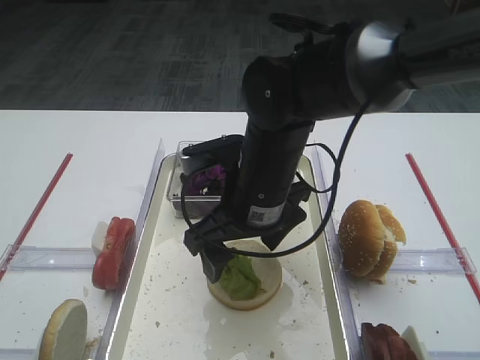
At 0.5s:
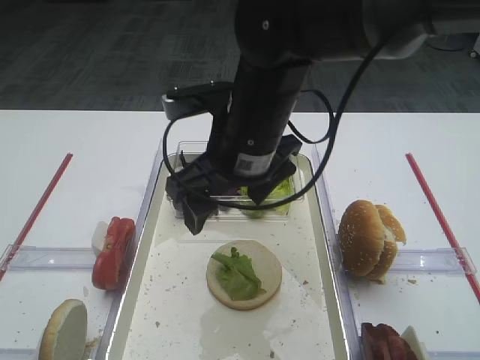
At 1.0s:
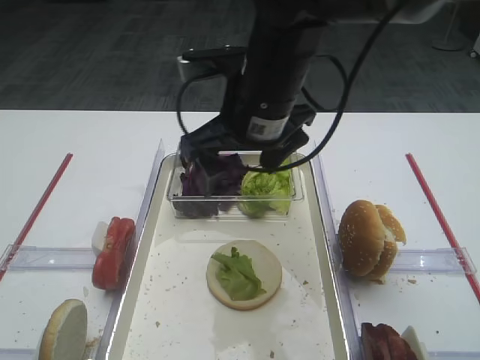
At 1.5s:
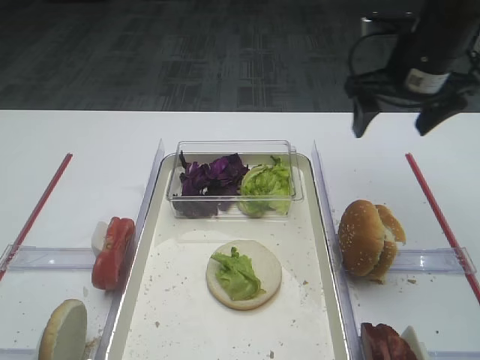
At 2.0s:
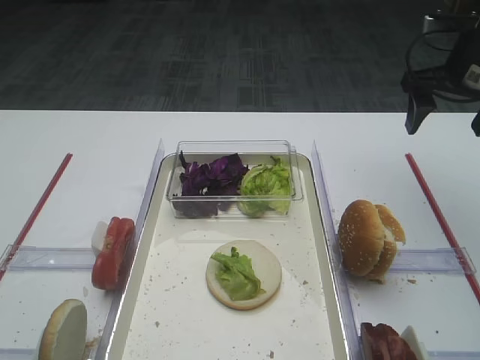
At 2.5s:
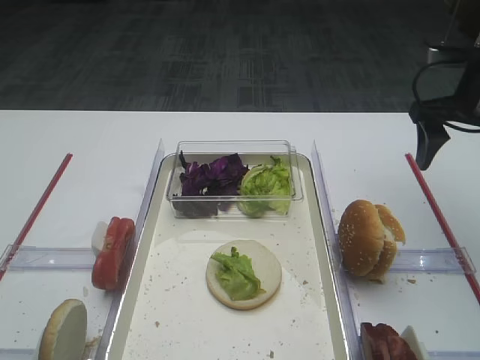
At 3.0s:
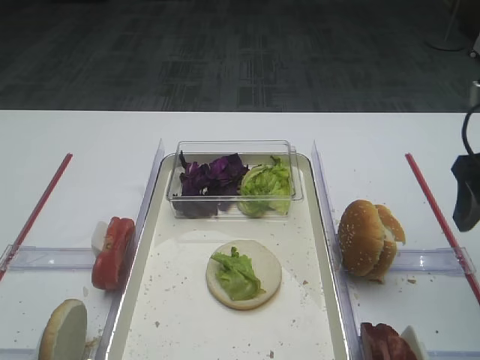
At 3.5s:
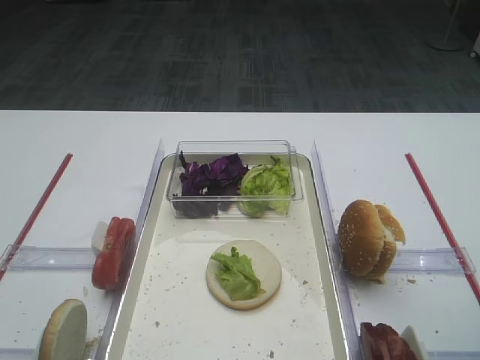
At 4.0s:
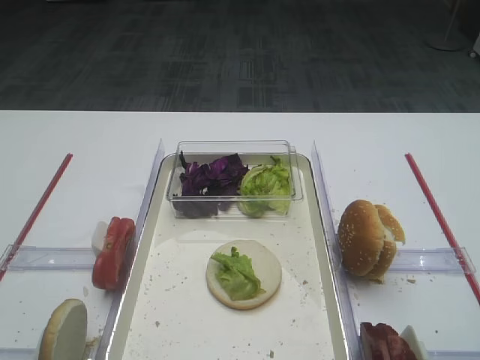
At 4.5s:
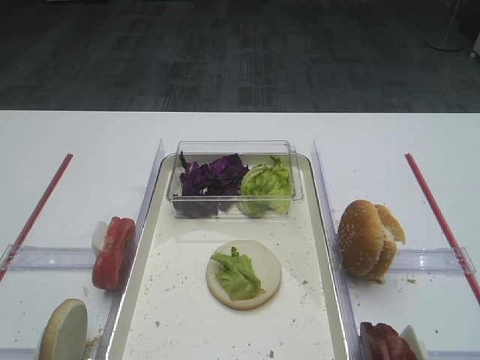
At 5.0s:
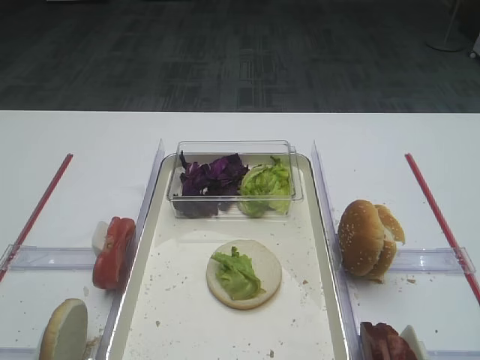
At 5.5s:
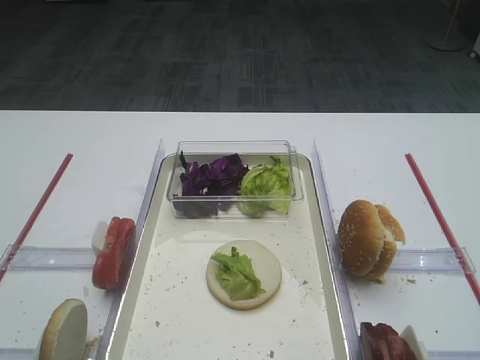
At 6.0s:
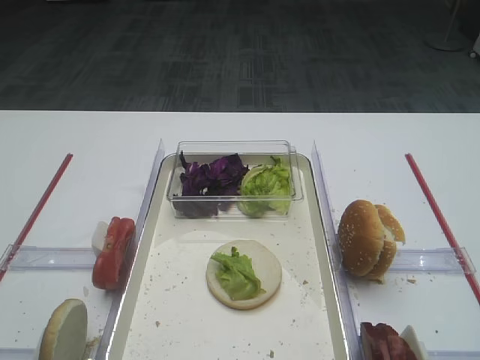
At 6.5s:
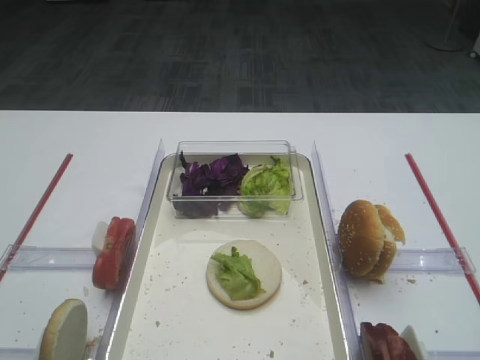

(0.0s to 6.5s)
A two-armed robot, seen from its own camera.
0.0s - 2.0s: The right gripper heads to the right and forward, covering about 30 cm.
2.0s - 4.5s: The right gripper moves backward, about 40 cm.

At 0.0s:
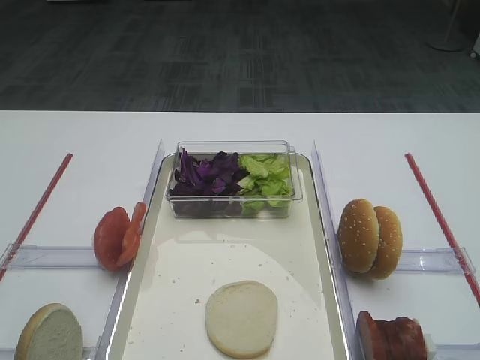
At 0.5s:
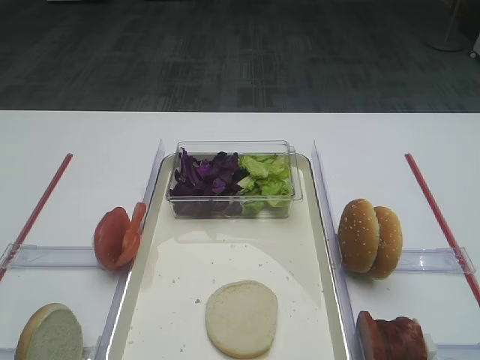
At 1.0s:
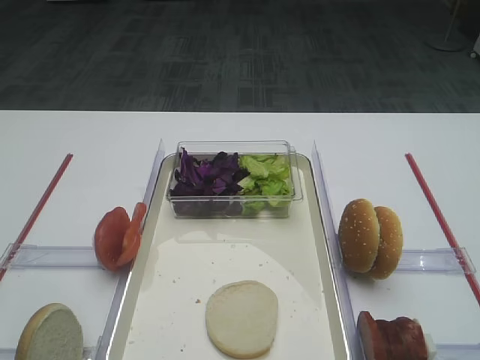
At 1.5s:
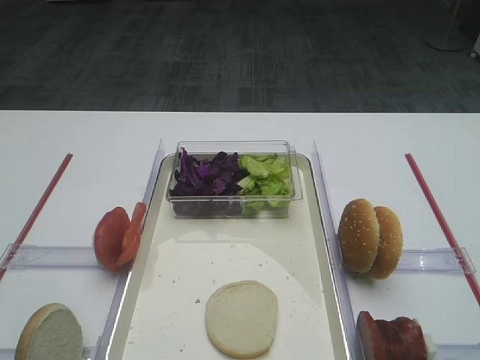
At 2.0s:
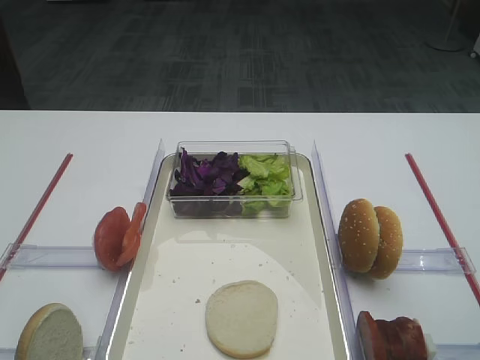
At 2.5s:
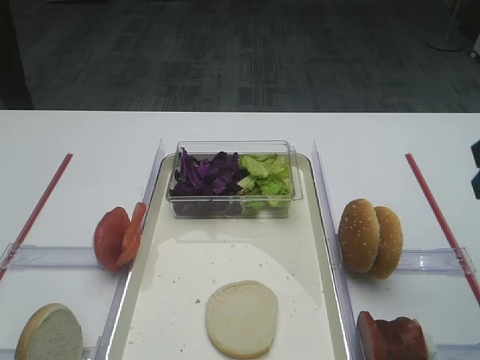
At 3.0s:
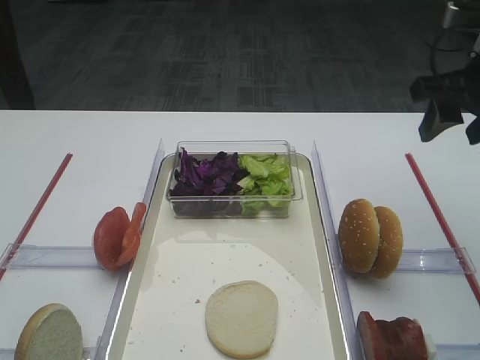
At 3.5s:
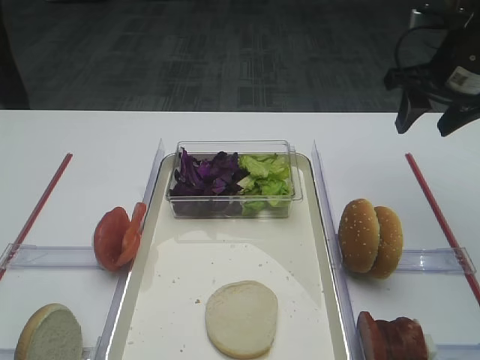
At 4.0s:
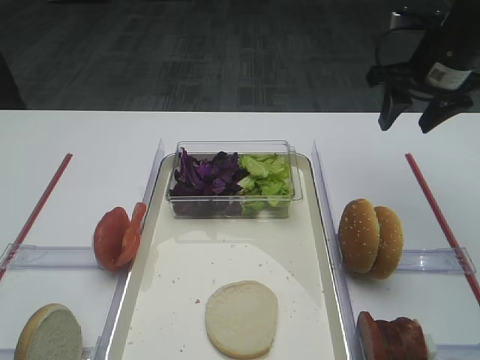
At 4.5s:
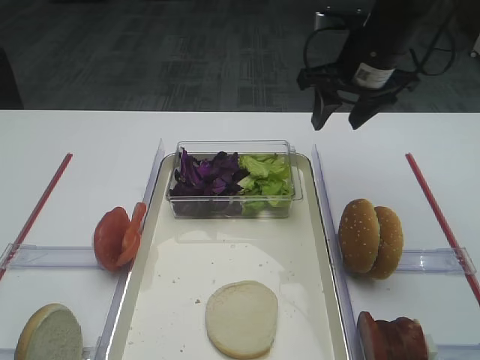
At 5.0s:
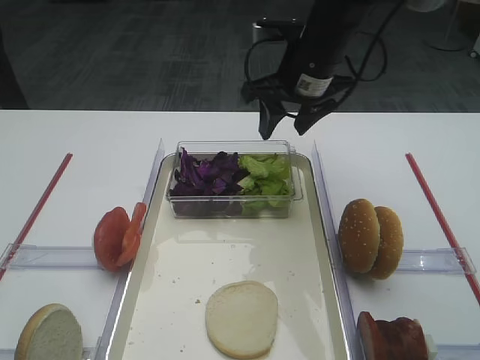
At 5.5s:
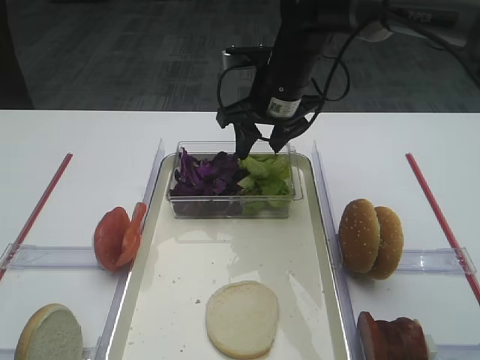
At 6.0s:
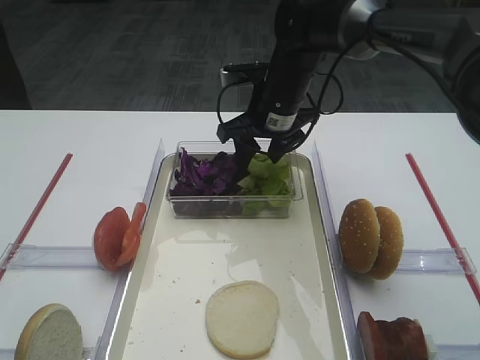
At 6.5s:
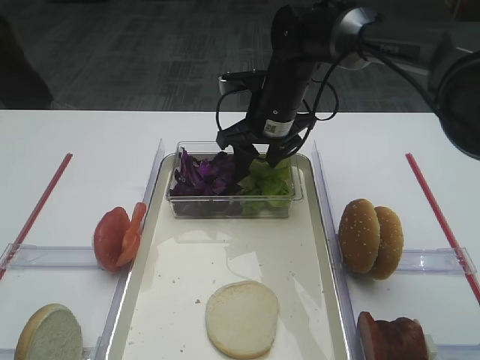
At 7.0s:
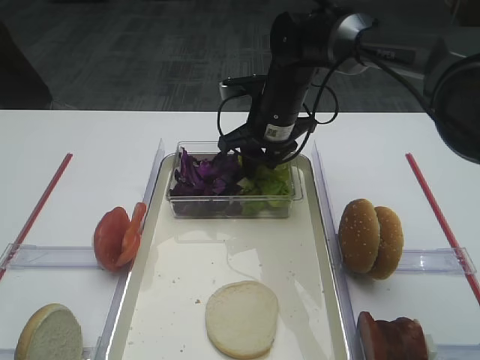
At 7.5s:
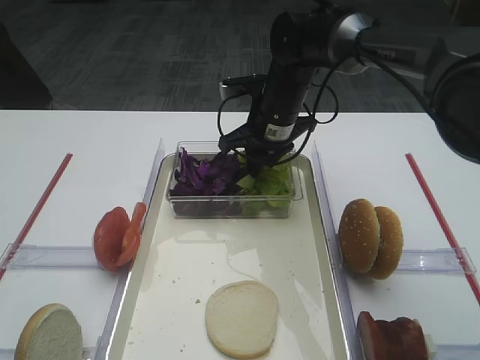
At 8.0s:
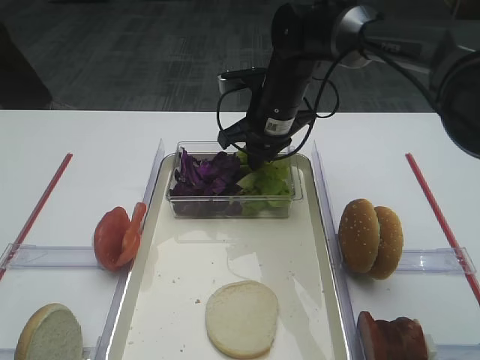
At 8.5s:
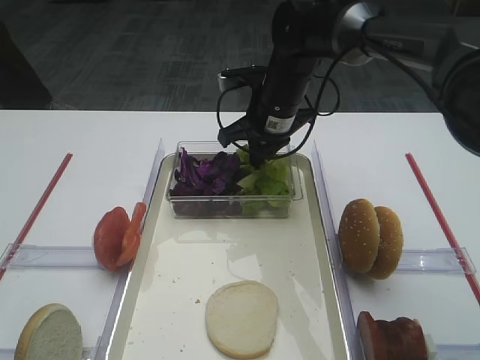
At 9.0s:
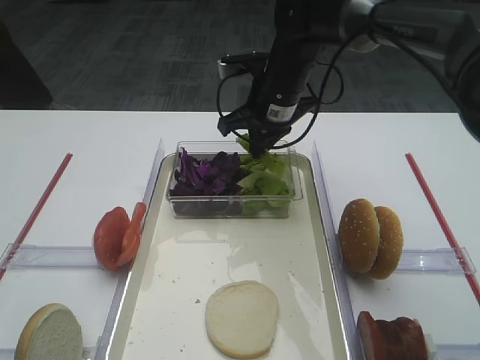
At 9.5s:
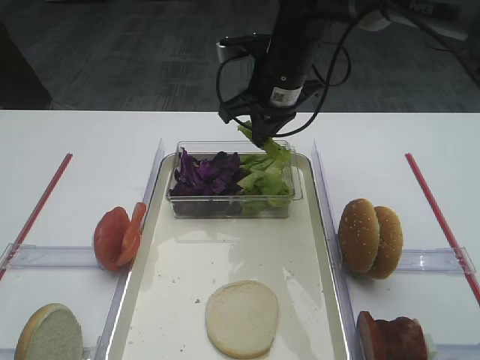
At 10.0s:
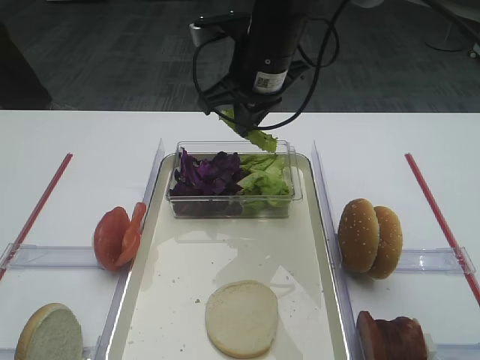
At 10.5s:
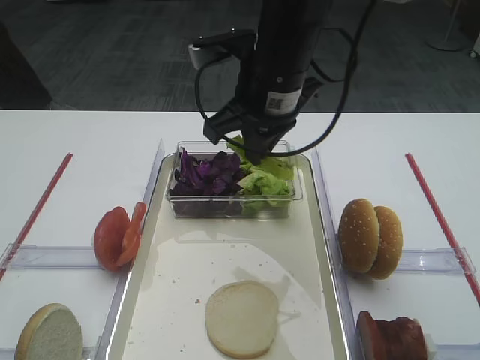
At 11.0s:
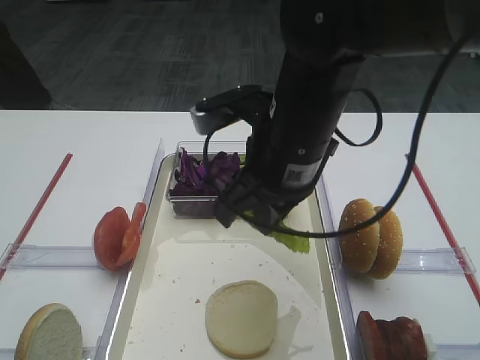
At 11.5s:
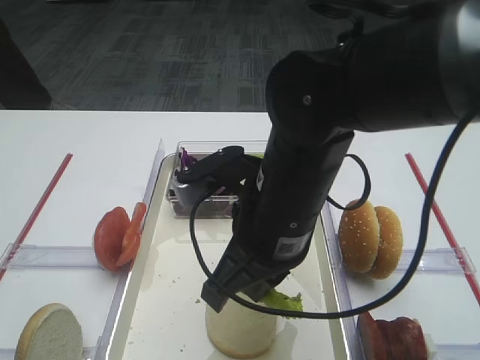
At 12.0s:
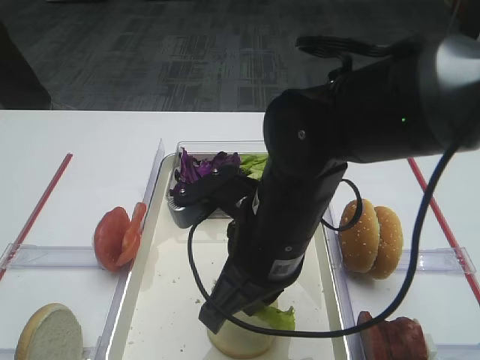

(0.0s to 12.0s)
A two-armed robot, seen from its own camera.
Step, 0.0s - 9.5s: Pick up the lettuce leaf with the right gripper.
2.0s - 4.0s: The right gripper shifts roughly 30 cm forward.
4.0s - 6.0s: The right gripper shifts about 20 cm to the left.
6.0s - 8.0s: The right gripper closes.
8.0s - 10.0s: The right gripper heads upward, covering approximately 10 cm.
10.0s - 12.0s: The right gripper moves backward and downward, some 20 cm.

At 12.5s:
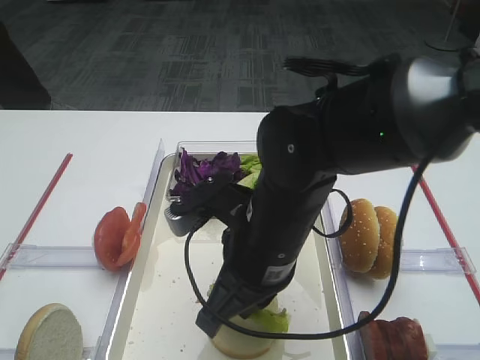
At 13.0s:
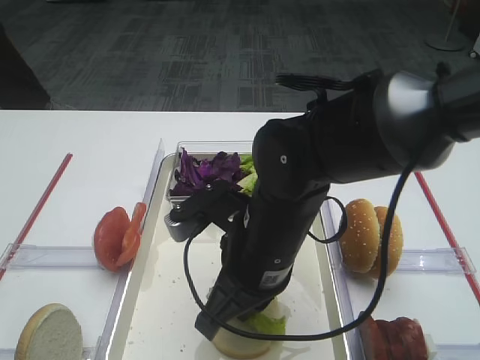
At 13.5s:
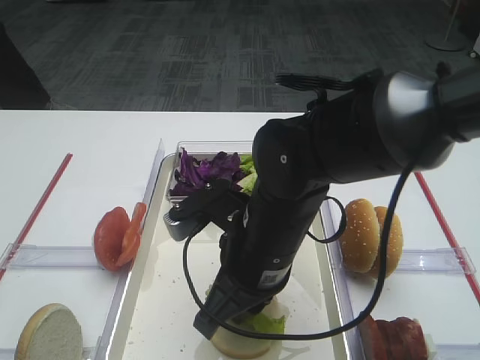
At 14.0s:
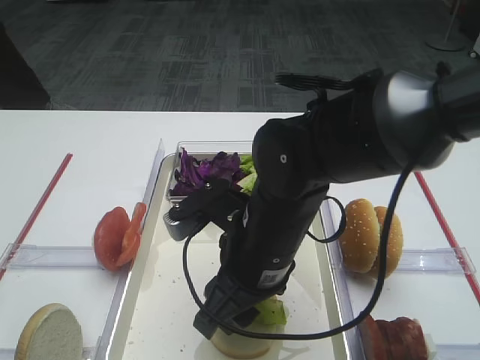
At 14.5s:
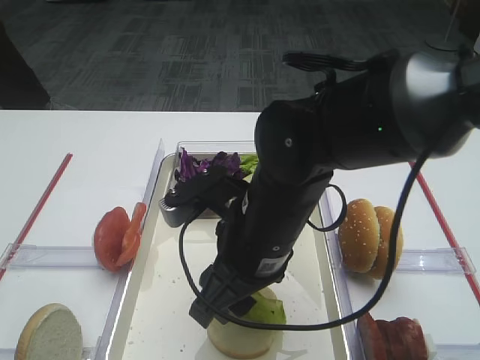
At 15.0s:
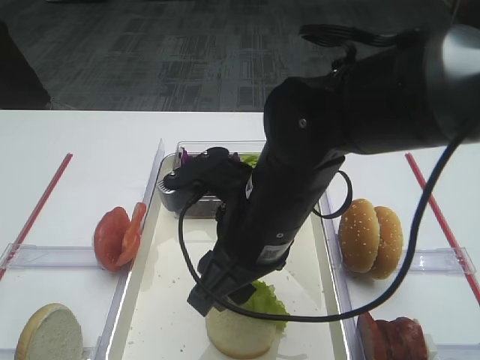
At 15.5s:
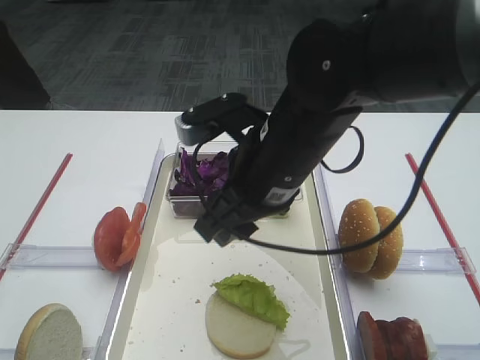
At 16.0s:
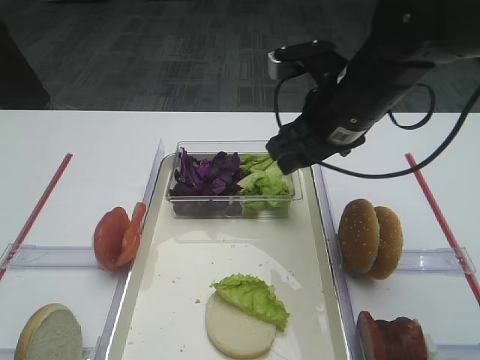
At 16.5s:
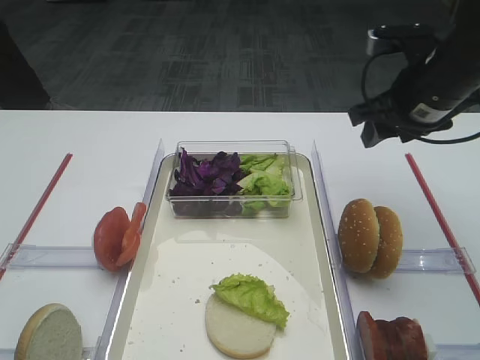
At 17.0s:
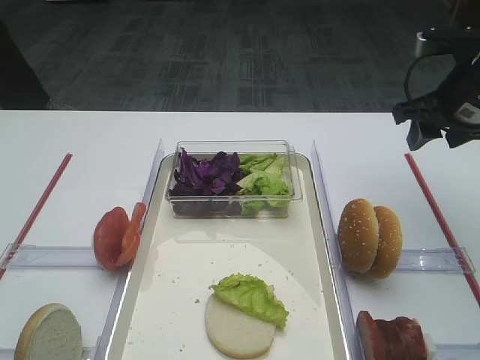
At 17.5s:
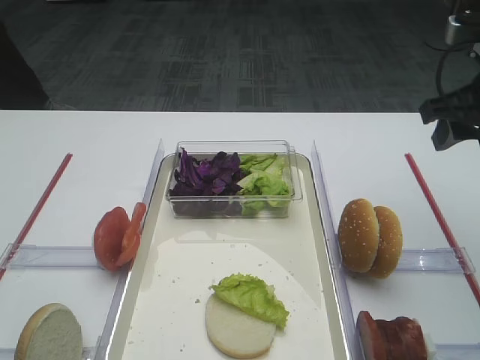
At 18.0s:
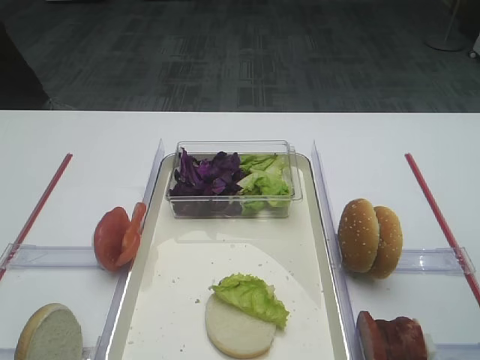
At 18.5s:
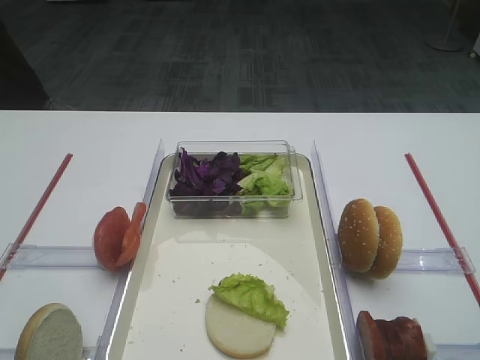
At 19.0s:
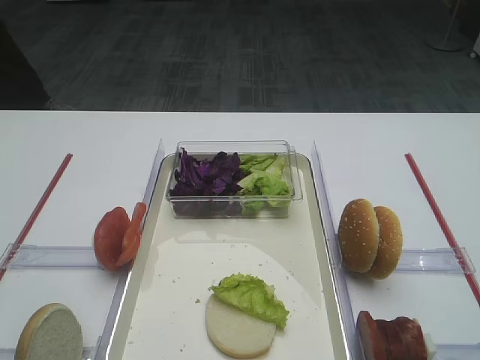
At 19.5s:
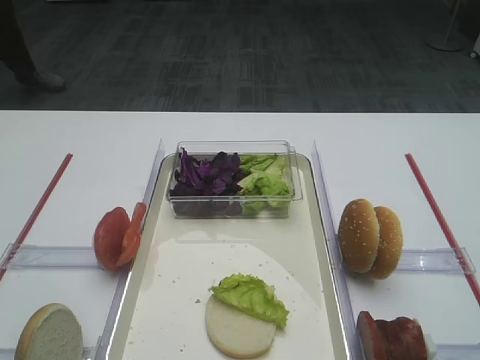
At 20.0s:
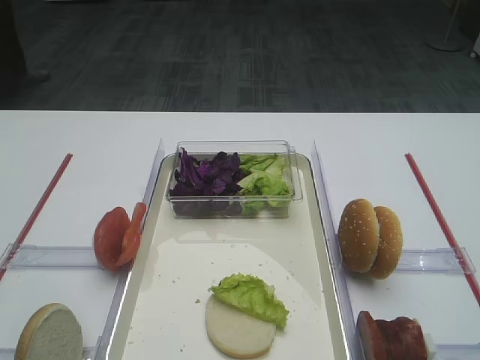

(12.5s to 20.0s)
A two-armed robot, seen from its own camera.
Step, 12.5s - 15.5s: Place the lettuce leaf on the bread slice with the right gripper.
12.5s - 14.5s: The right gripper opens.
14.5s - 16.5s: The right gripper travels to the right and forward by some 25 cm.
16.5s - 18.0s: The right gripper shifts some 15 cm backward.
